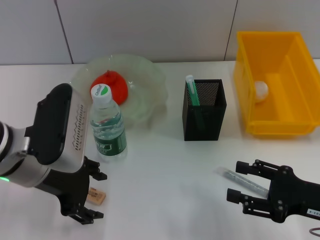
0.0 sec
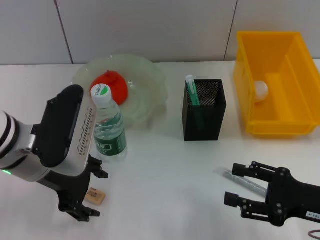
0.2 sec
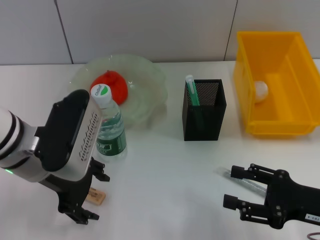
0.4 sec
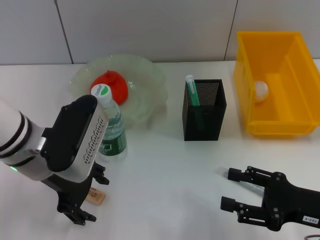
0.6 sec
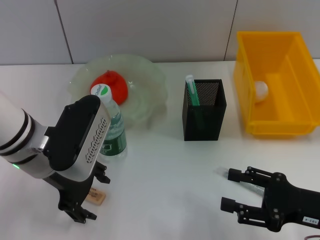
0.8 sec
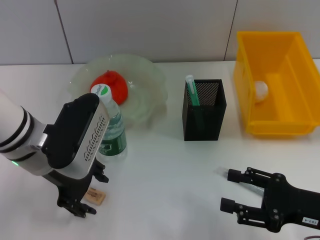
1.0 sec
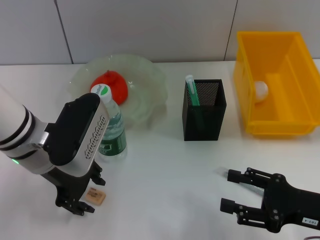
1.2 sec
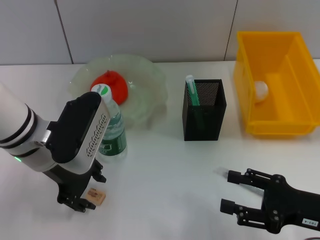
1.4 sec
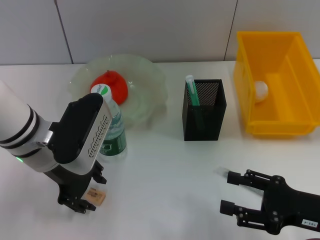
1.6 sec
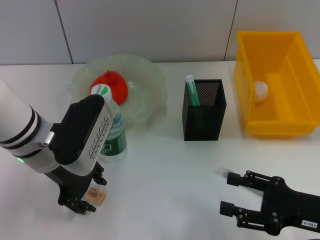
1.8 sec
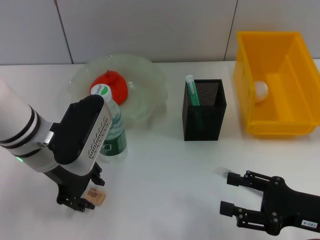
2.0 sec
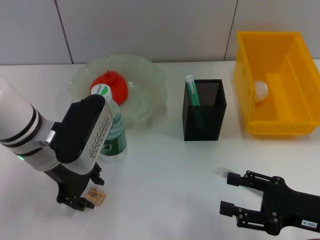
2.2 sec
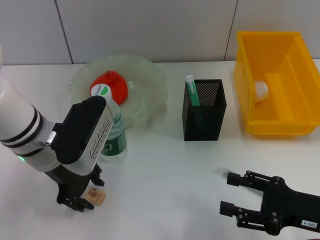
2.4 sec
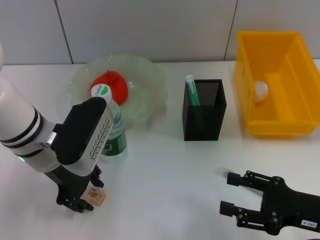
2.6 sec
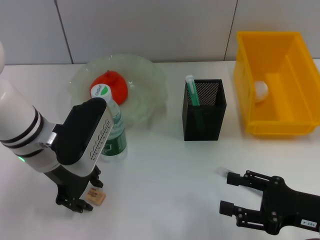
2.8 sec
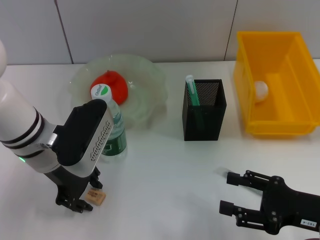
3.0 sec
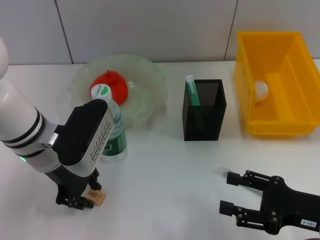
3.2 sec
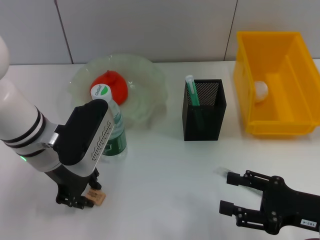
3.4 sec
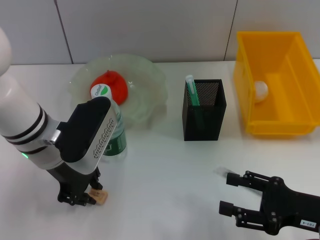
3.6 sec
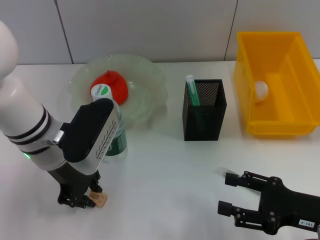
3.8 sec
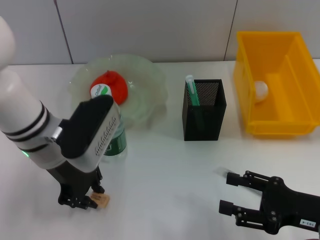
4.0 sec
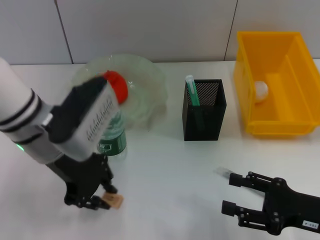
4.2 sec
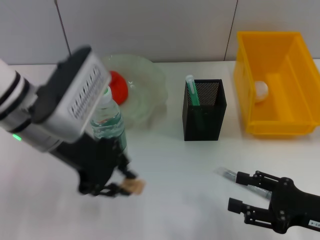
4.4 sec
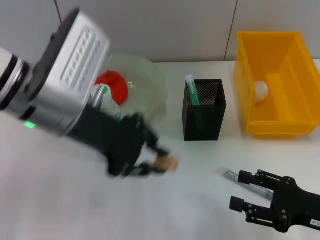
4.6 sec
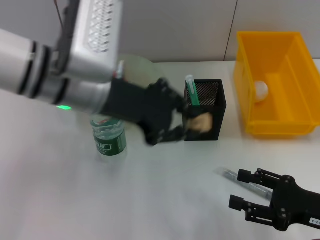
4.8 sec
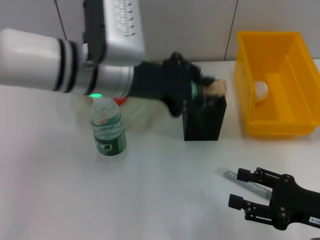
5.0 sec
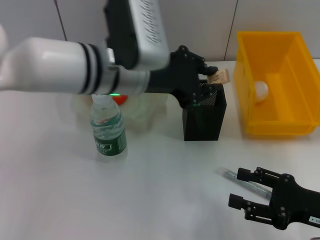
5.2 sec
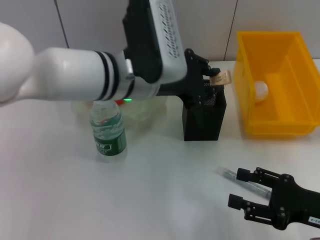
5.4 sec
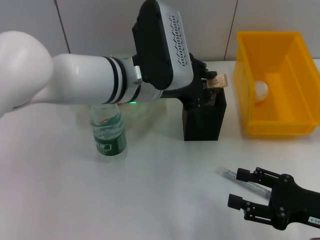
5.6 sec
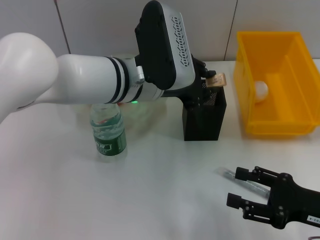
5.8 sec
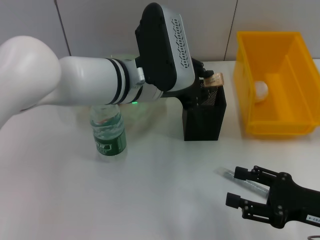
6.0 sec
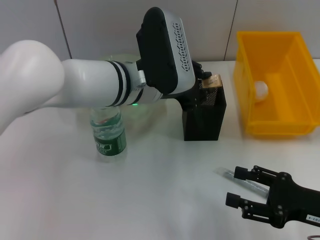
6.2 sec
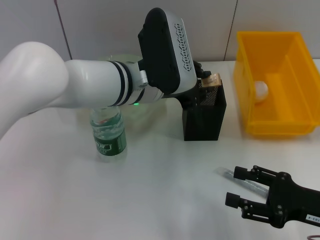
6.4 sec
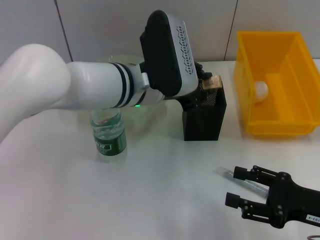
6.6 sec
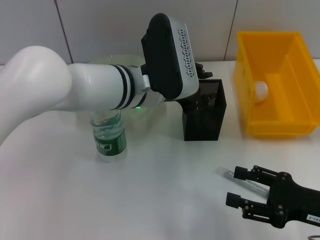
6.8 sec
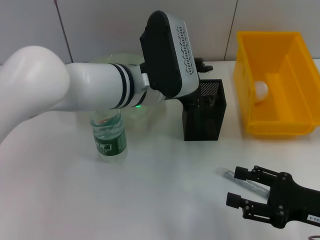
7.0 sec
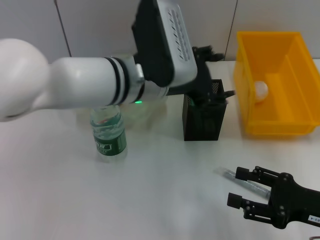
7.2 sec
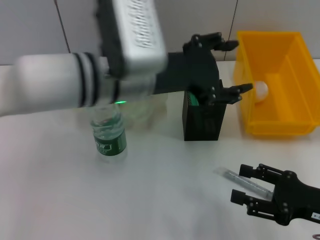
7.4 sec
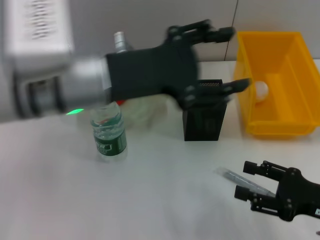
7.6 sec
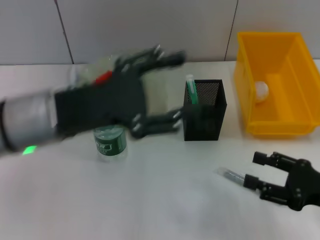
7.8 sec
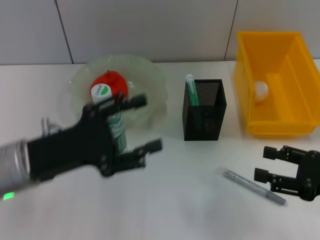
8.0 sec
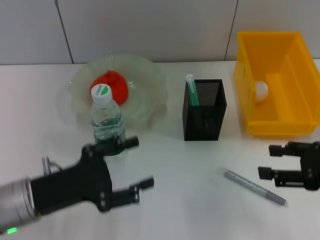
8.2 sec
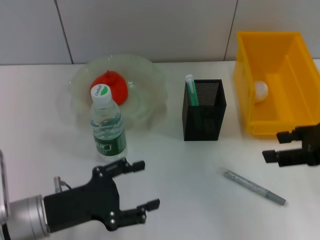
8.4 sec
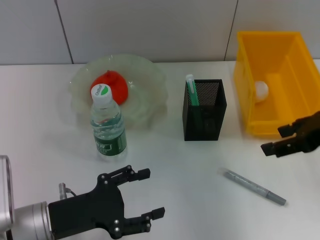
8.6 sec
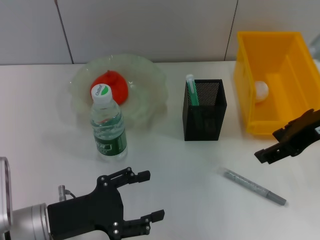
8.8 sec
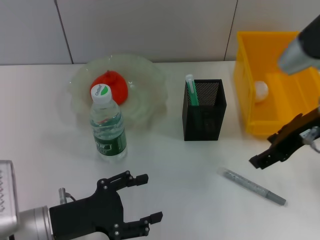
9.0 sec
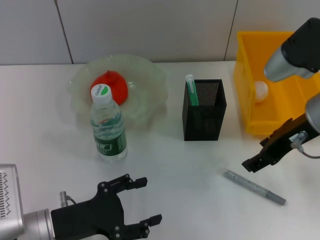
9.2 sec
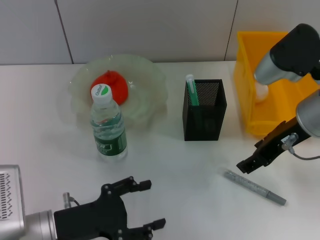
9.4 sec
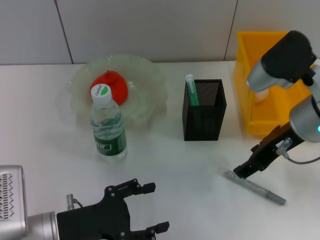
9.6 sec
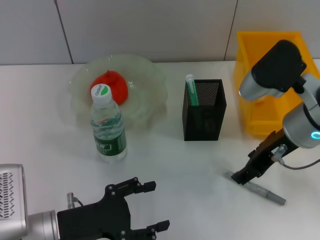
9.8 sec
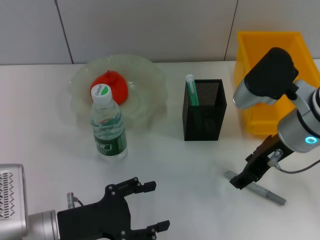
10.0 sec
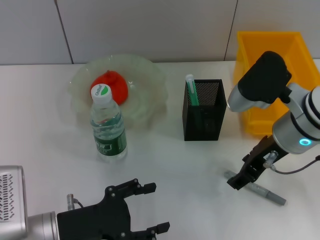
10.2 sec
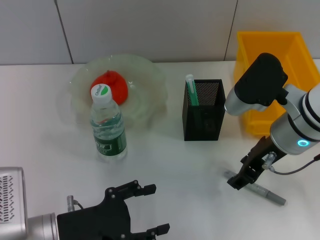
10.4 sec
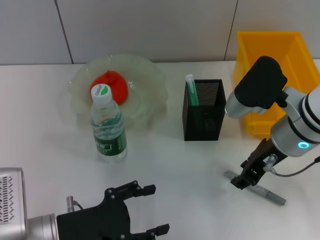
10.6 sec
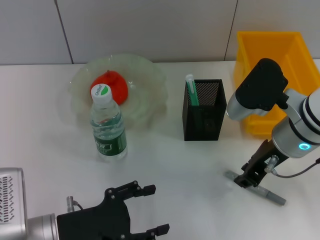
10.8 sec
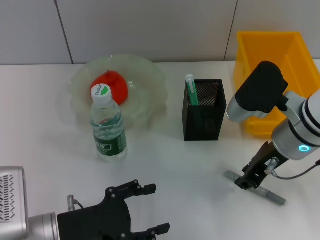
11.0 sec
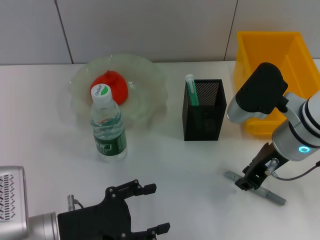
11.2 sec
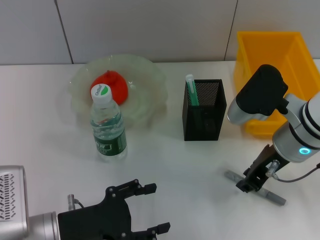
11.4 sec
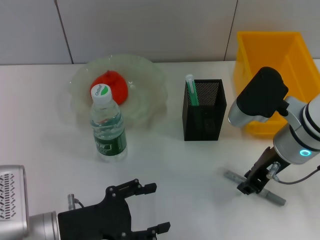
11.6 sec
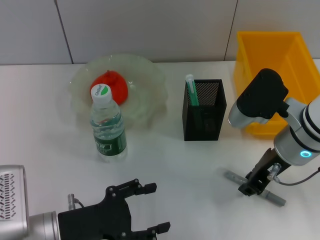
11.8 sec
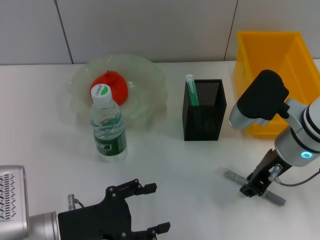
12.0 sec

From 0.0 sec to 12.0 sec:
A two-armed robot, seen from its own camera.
Step, from 0.0 sec to 3.4 sec: Grab the eraser with the left hand.
Step, from 3.6 sec to 7.0 sec: Place the eraser into the pen holder with the left hand.
From 0.0 sec to 1.6 sec: The grippers make only small movements.
From 1.6 sec to 3.0 sec: Neither gripper changes place.
From 3.0 sec to 4.4 sec: The left gripper goes about 5 cm upward.
From 4.4 sec to 6.0 sec: The left gripper travels to the right and forward by some 10 cm.
From 6.0 sec to 7.6 sec: The left gripper is displaced to the left, backward and upward by some 10 cm, and opens.
From 7.6 sec to 9.0 sec: The left gripper goes about 20 cm downward, to the left and backward. The right gripper goes approximately 20 cm upward, forward and to the left.
From 9.0 sec to 10.4 sec: The right gripper travels downward by some 5 cm.
From 10.4 sec to 12.0 sec: The right gripper closes.

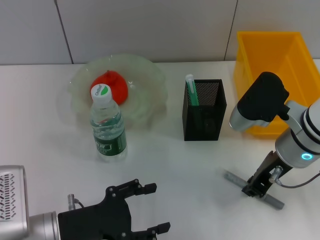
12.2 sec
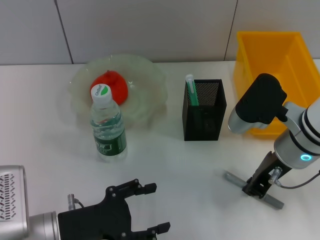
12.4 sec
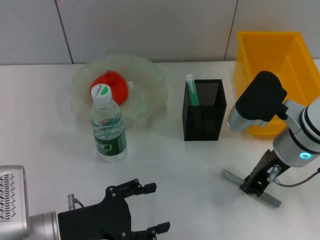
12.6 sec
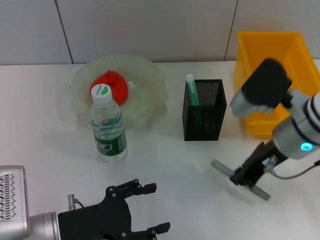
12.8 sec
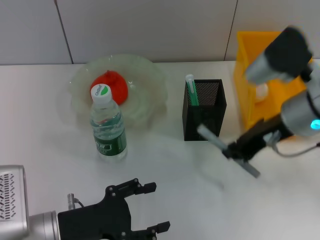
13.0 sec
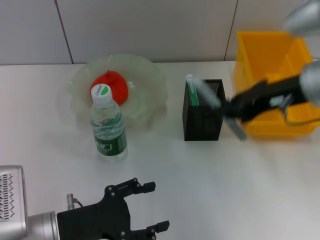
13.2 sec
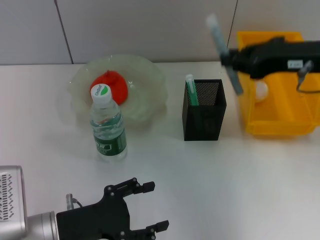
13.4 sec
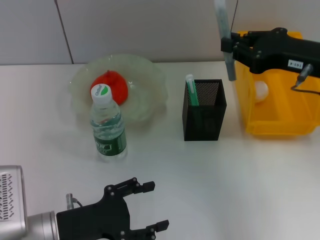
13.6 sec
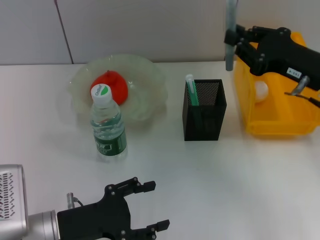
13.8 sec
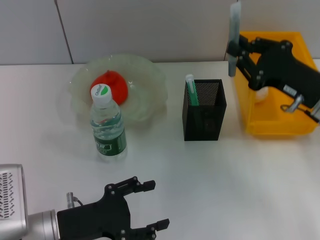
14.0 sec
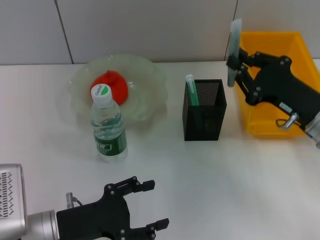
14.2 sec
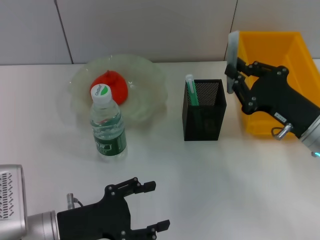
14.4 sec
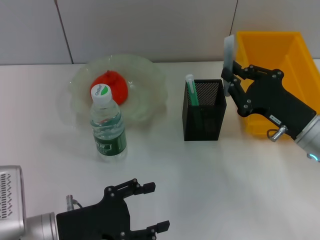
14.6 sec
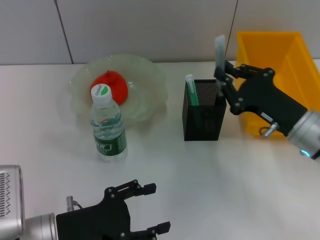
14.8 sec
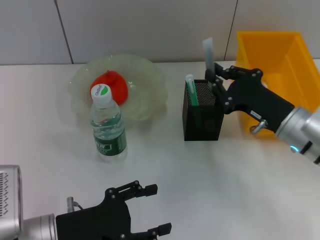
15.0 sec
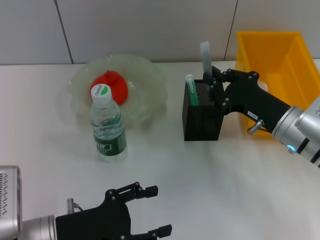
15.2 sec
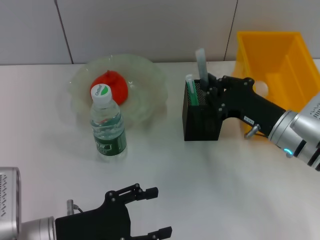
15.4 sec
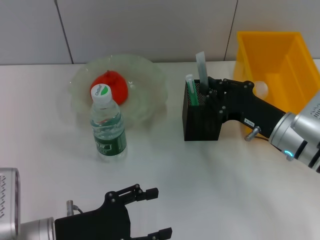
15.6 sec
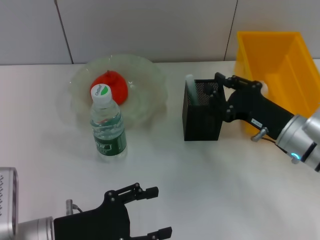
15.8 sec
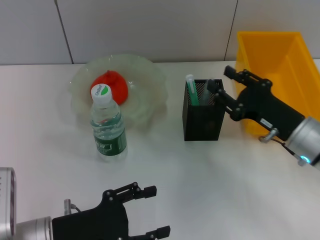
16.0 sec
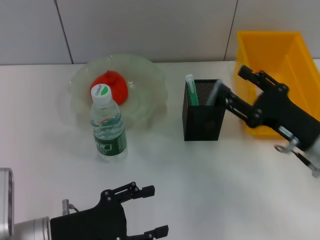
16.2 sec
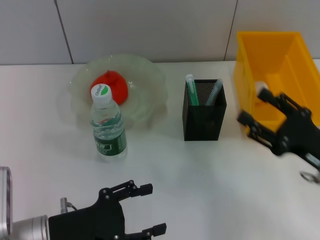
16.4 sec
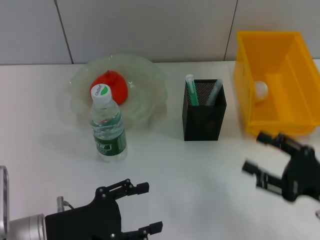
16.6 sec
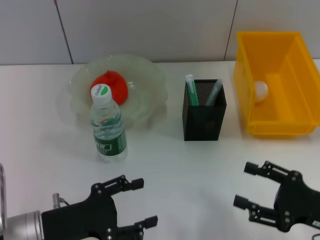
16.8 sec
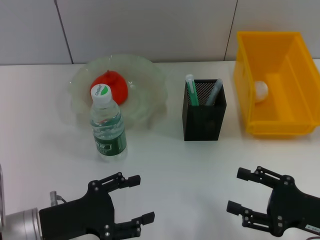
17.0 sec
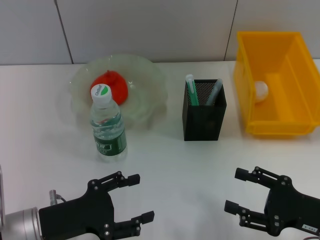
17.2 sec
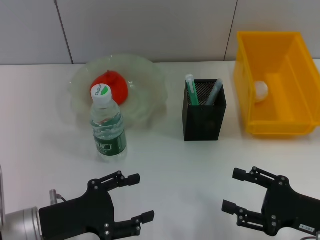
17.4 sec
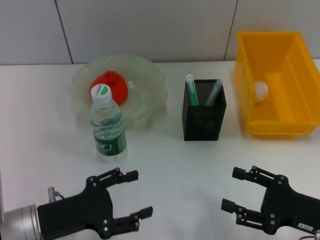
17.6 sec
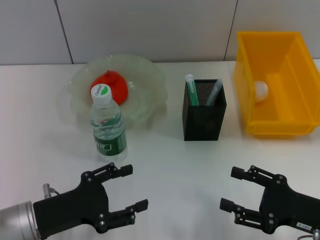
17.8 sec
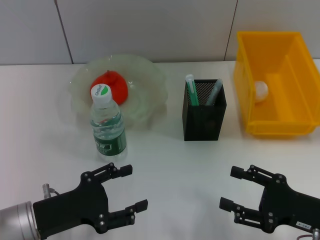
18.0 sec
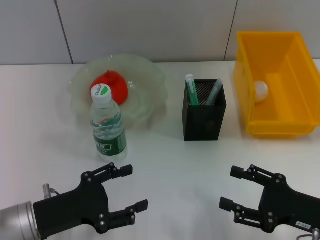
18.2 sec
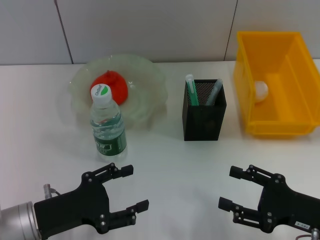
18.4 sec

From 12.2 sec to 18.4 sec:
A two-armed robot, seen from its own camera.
Step, from 12.6 sec to 16.0 sec: Place the gray glue into the pen holder with the right hand.
From 12.2 sec to 13.8 sec: The right gripper is displaced to the right by some 5 cm, and goes upward and returns, some 10 cm each way.
From 13.8 sec to 15.4 sec: The right gripper heads downward, covering some 10 cm.
From 15.4 sec to 16.8 sec: The right gripper goes some 15 cm backward and to the right, and opens up.
From 16.8 sec to 18.4 sec: There are only small adjustments of the grippers.

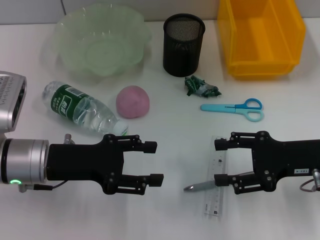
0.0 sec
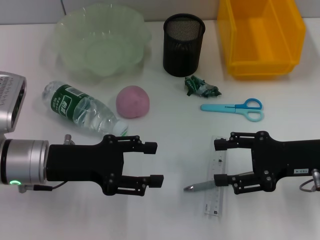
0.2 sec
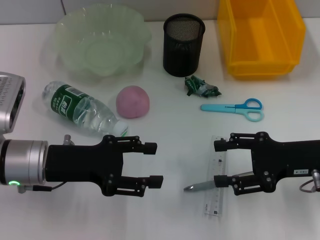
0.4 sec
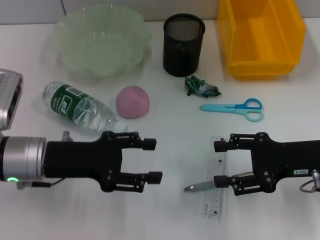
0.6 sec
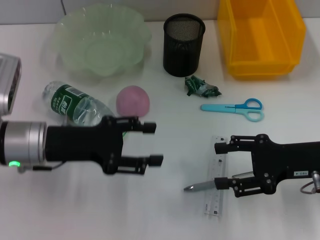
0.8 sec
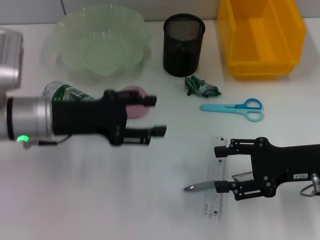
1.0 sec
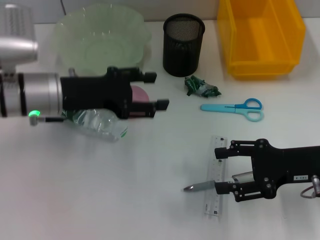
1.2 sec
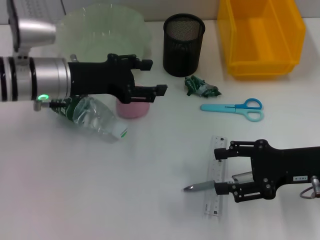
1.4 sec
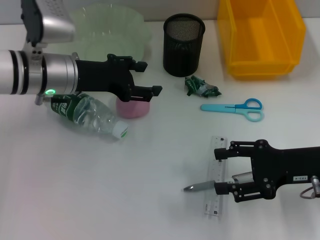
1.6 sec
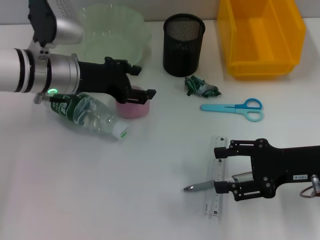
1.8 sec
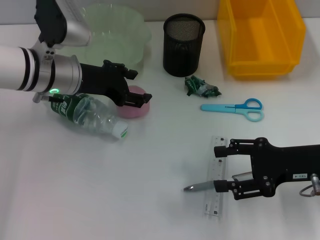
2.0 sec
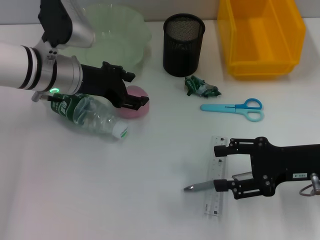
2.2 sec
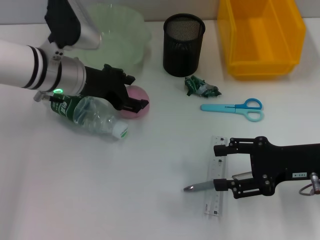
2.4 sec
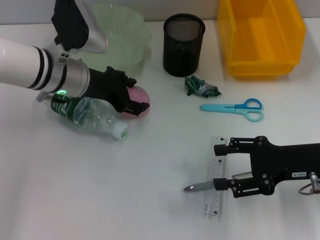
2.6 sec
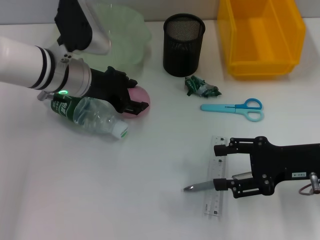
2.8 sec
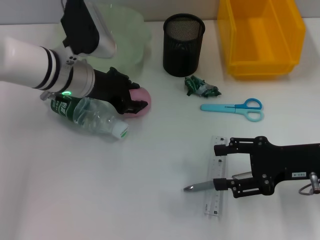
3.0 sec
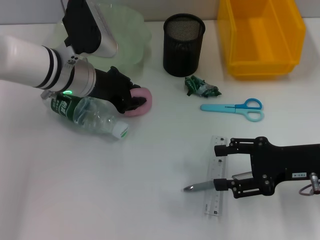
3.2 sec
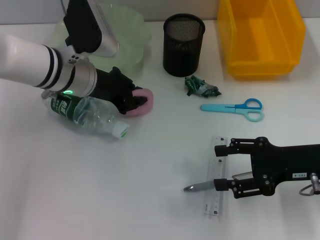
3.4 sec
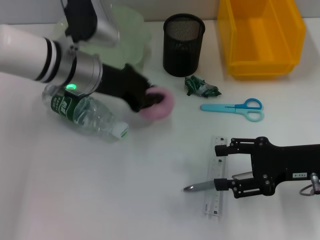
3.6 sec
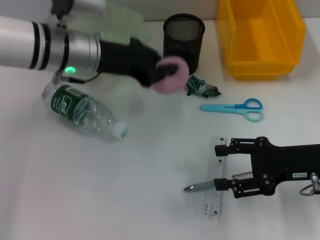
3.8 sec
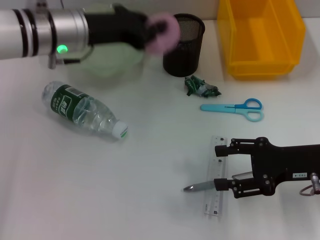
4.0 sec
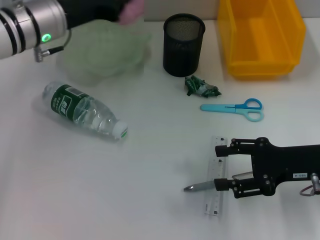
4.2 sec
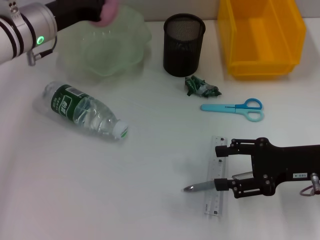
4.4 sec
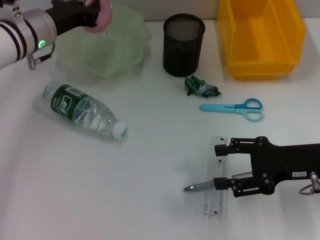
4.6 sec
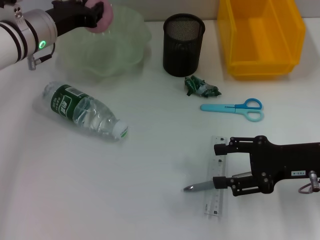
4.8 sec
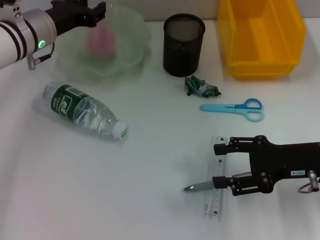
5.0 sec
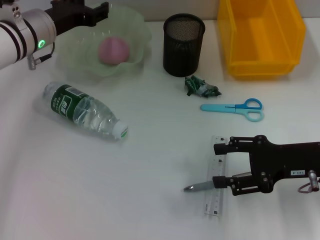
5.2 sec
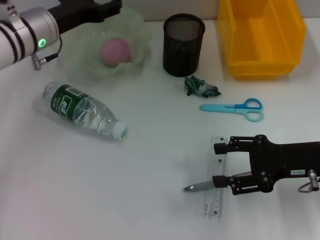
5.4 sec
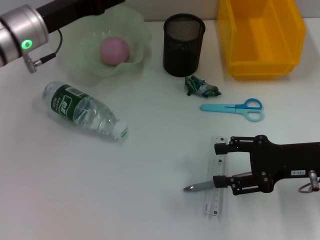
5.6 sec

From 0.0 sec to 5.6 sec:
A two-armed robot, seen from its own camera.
Step, from 0.0 sec to 3.2 sec: Grab the peach with the left hand.
Step, from 3.4 sec to 5.0 sec: Place the peach into the fruit bowl with the left hand.
From 0.0 sec to 1.4 sec: The left gripper moves forward, roughly 10 cm.
From 2.8 sec to 4.2 sec: The left gripper ends up some 5 cm from where it was, and closes.
From 4.2 sec to 5.6 sec: The left gripper opens up.
